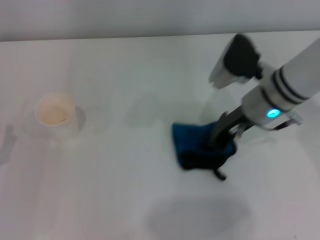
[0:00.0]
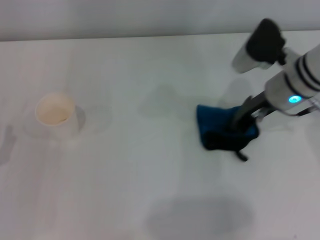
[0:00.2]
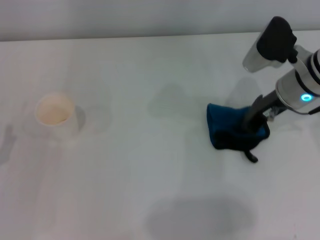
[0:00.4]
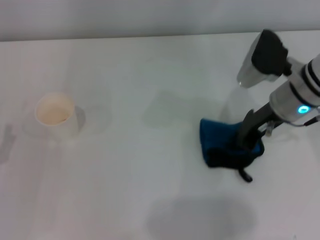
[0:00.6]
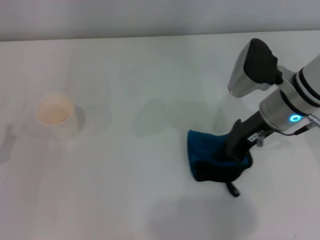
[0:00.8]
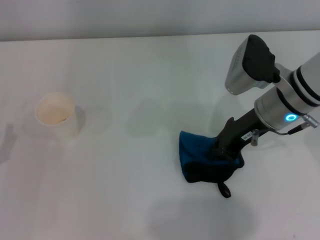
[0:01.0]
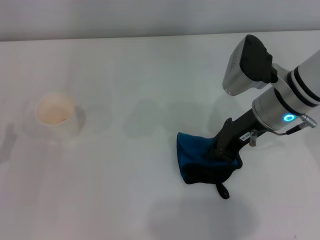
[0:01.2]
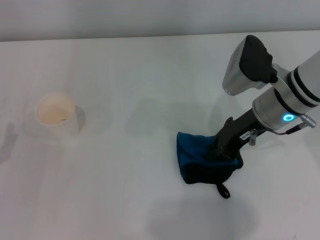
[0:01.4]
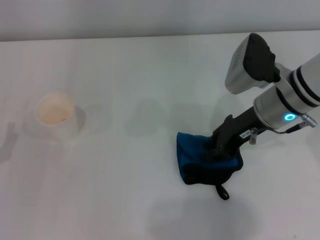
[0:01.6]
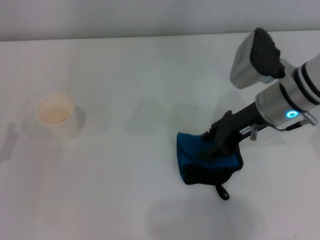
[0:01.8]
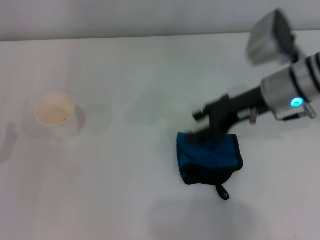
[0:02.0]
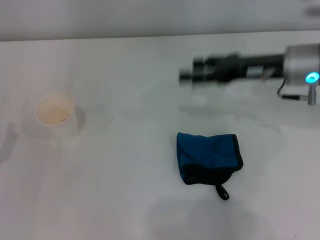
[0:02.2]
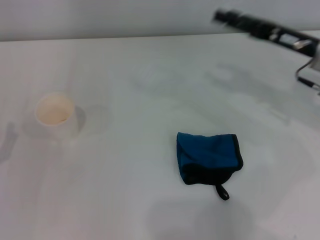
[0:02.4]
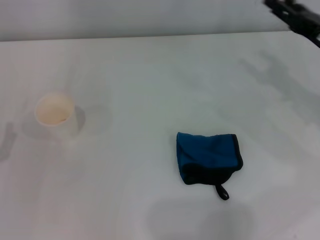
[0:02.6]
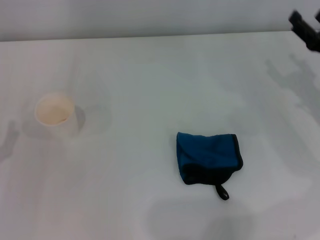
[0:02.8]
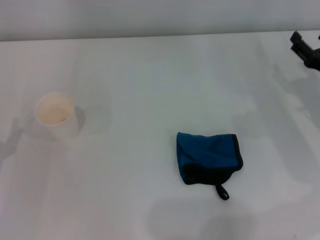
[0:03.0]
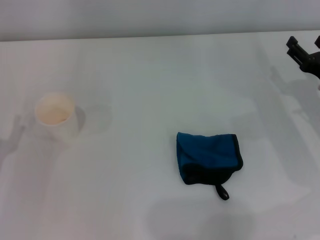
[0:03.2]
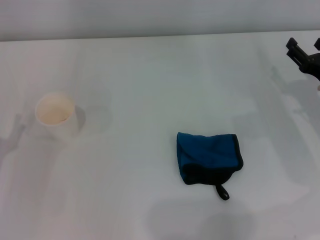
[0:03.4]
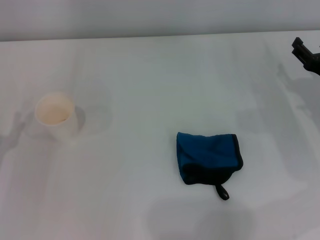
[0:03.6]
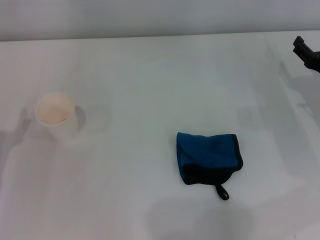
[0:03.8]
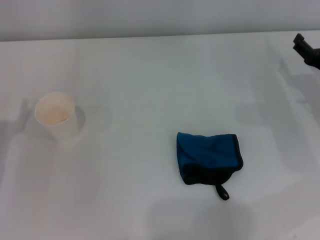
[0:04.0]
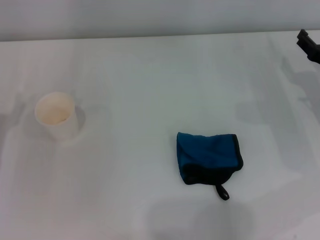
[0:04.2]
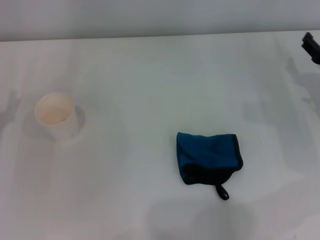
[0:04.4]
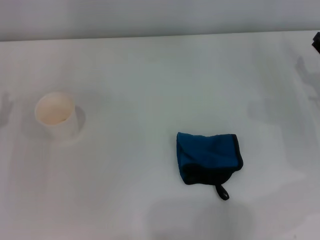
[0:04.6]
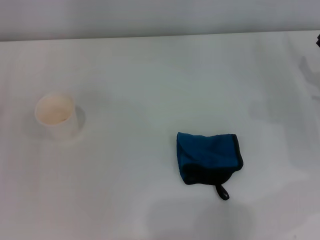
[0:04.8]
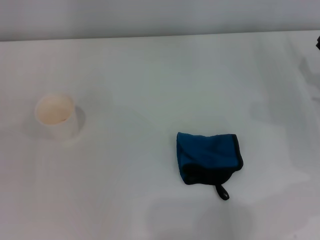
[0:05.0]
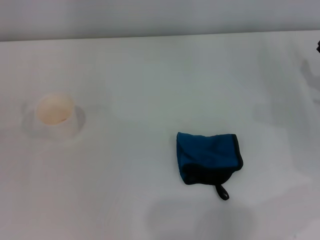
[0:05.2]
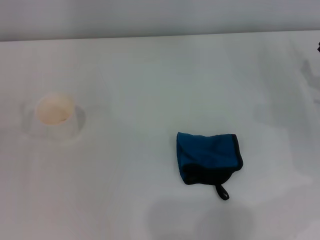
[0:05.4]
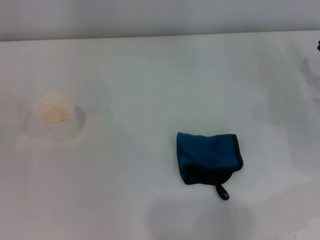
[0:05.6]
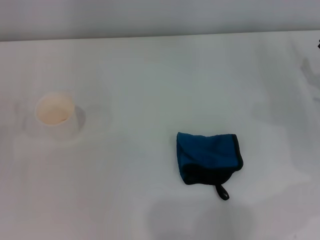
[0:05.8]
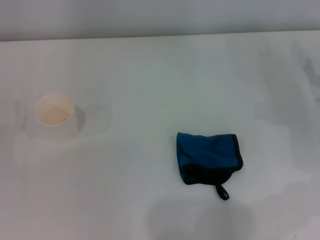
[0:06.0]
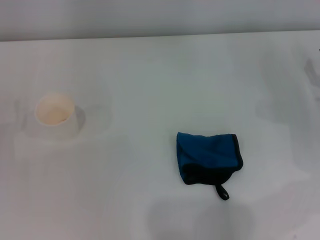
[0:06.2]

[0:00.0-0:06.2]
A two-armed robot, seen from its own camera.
Step, 0:01.0 to 0:01.6: Place the rag on the table with the right gripper.
0:00.0 to 0:01.6: The grippers move only a little.
0:01.6 to 0:03.2: The right gripper heads to the right and downward, covering roughly 15 cm, and opens up.

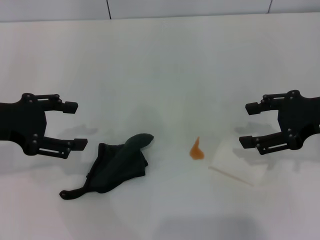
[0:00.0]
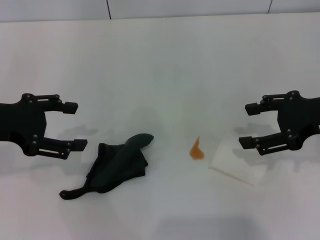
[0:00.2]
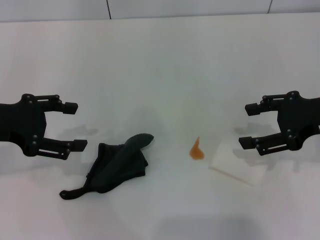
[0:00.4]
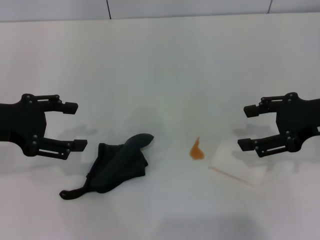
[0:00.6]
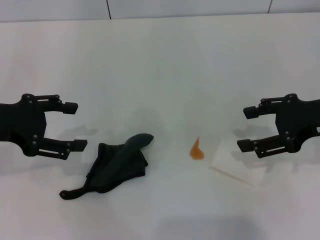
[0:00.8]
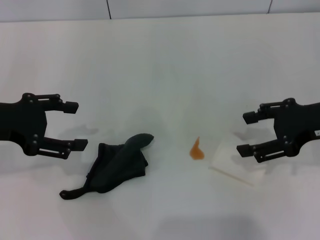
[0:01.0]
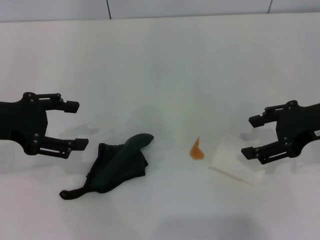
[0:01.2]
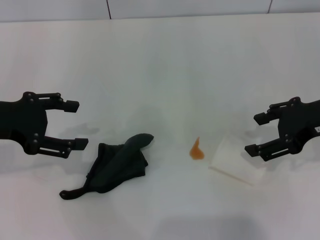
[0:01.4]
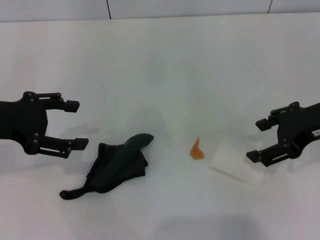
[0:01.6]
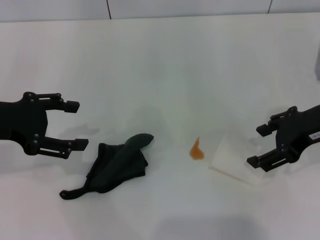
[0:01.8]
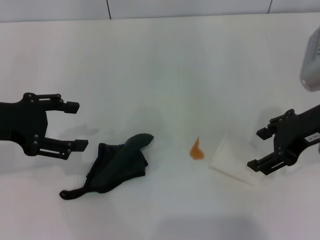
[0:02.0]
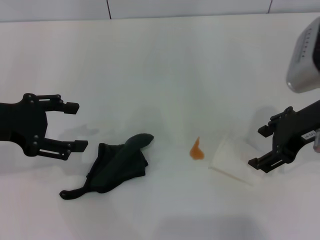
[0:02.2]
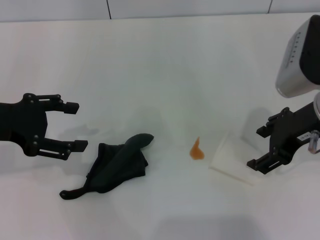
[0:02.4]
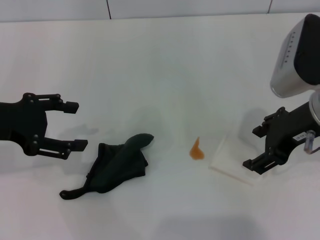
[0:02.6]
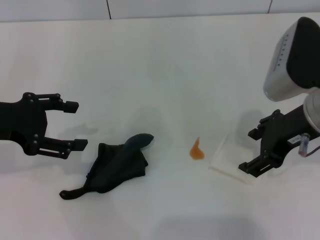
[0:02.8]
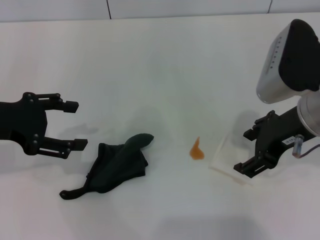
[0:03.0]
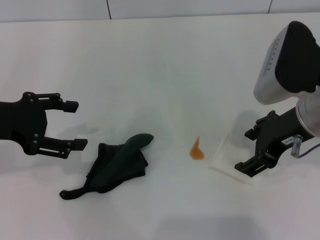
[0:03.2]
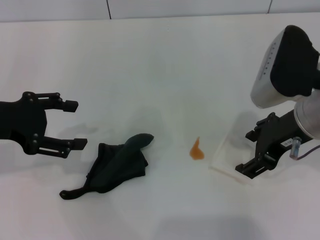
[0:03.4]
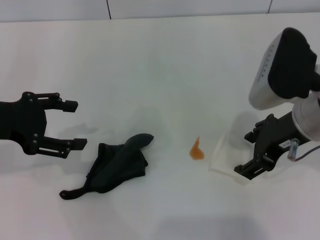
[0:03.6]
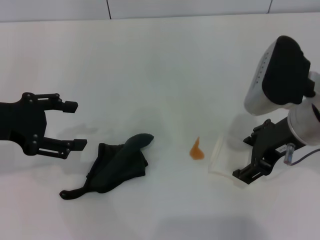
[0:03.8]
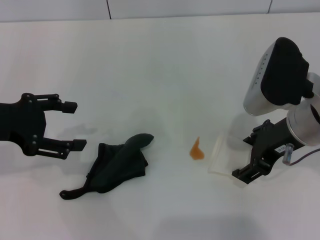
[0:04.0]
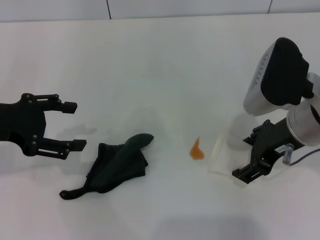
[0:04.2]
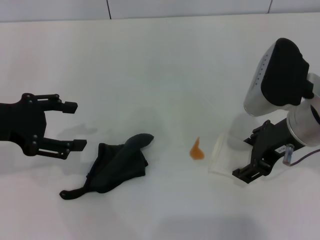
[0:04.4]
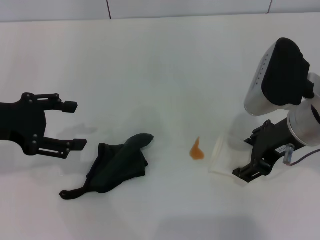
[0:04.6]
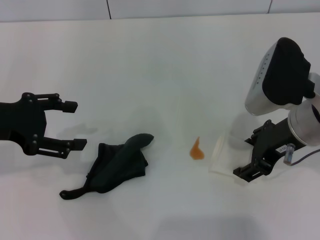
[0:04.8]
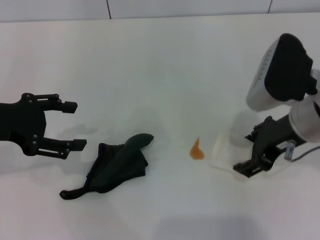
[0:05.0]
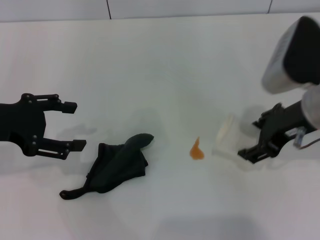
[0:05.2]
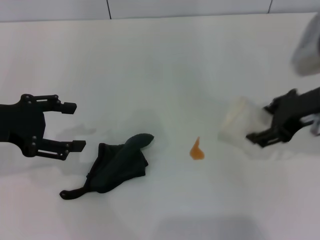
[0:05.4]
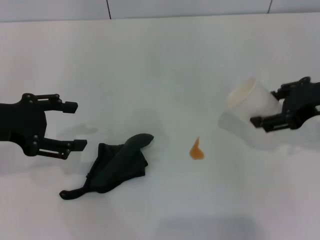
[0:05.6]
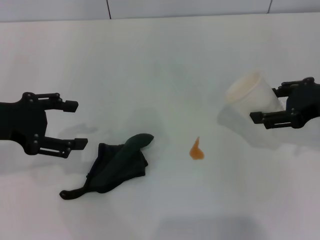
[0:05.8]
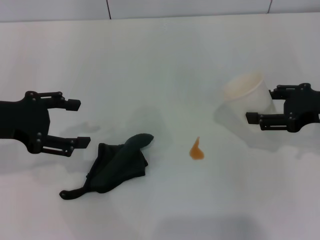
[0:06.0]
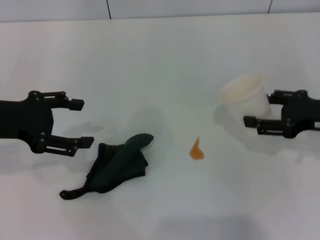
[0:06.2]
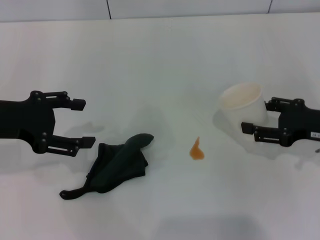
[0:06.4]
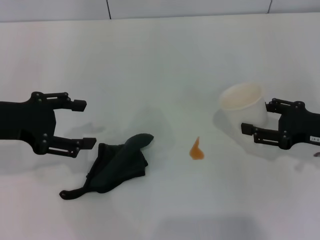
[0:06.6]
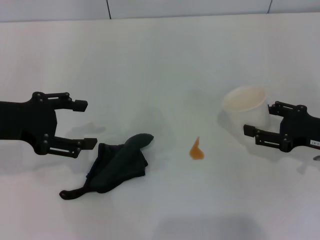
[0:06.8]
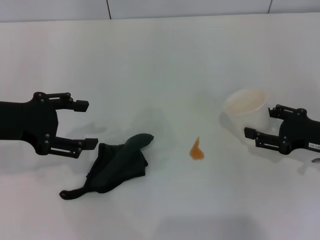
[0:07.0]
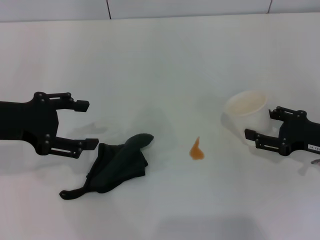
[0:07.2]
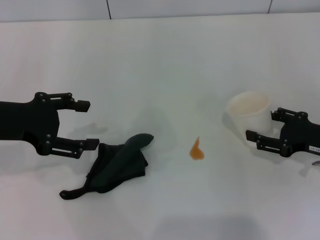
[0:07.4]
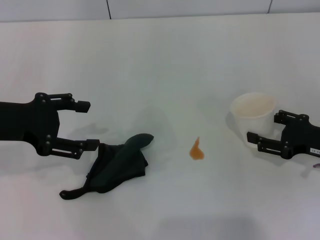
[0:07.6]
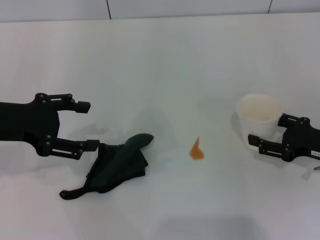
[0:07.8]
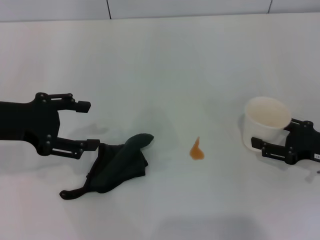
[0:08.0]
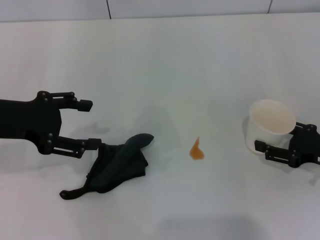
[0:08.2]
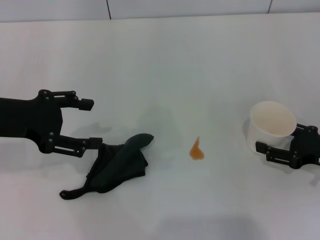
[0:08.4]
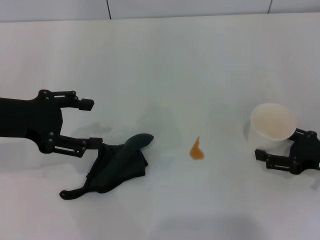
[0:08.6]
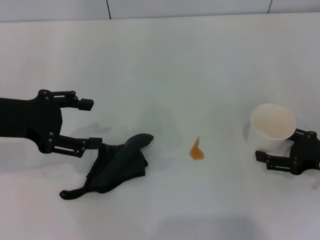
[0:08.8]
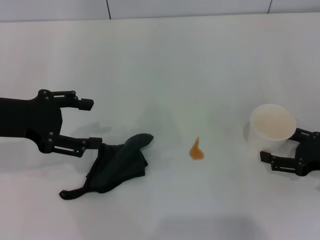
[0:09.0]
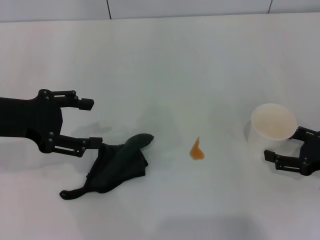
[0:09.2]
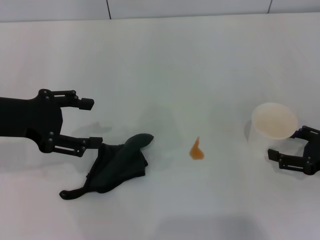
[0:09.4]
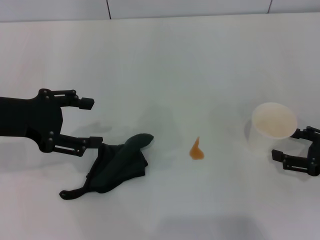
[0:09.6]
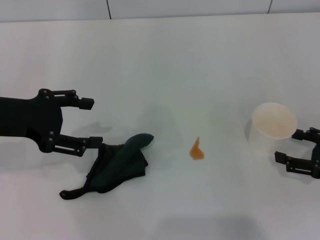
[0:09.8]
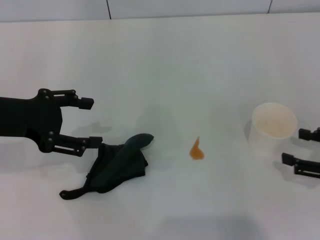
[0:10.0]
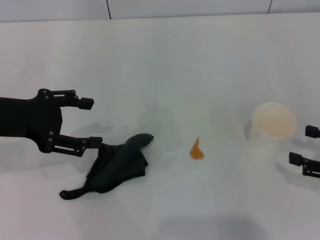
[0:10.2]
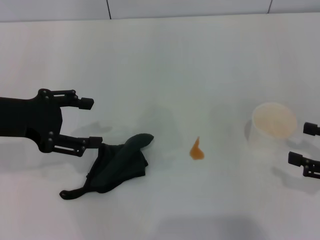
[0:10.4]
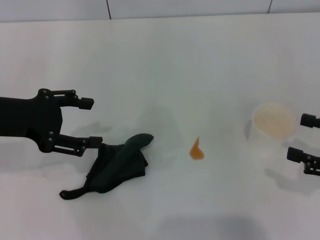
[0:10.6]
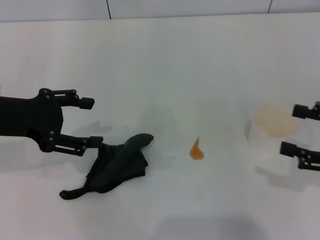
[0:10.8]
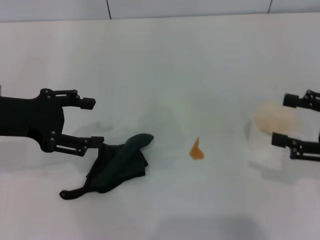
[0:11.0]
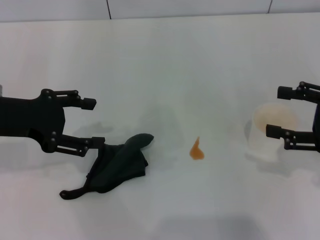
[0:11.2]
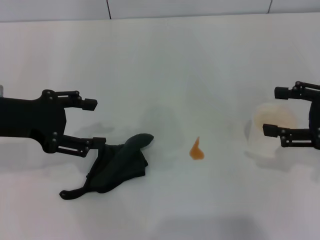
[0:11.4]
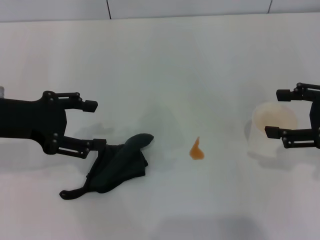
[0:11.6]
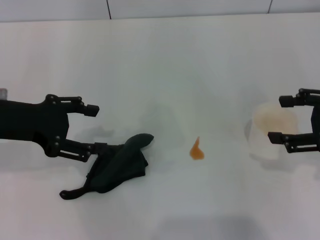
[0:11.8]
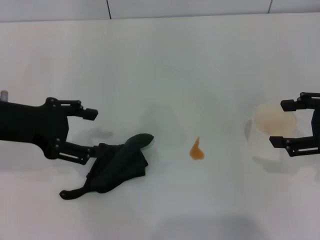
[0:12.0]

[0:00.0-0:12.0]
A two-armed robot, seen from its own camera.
Step, 0:00.0 to 0:04.8: Grasp the paper cup with the right gripper.
Step, 0:05.0 to 0:09.8: Stand the paper cup upright with the right gripper.
0:00.0 to 0:01.6: The grippers make only small movements.
0:01.6 to 0:03.0: The right gripper shifts approximately 5 cm to the left.
0:03.0 to 0:04.4: The grippers move only a little.
0:04.4 to 0:06.0: The right gripper heads to the right, covering about 10 cm.
0:06.0 to 0:07.6: The right gripper heads downward, covering approximately 10 cm.
0:07.6 to 0:09.0: The grippers move only a little.
0:09.0 to 0:10.4: The right gripper heads upward, covering some 5 cm.
0:10.4 to 0:12.0: The right gripper is displaced upward and forward by some 10 cm.

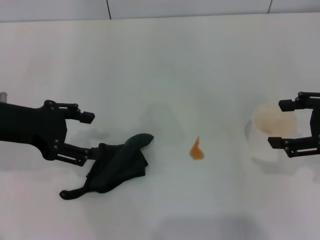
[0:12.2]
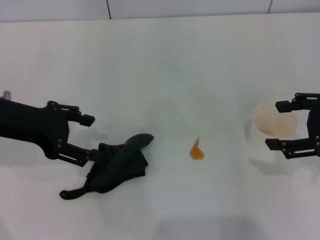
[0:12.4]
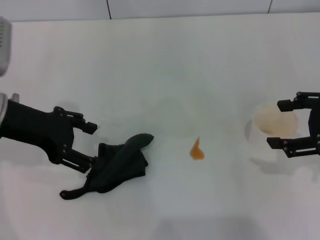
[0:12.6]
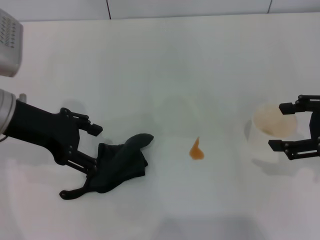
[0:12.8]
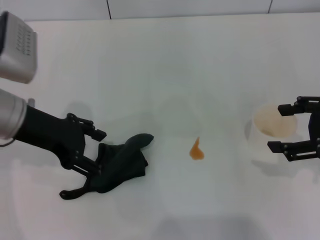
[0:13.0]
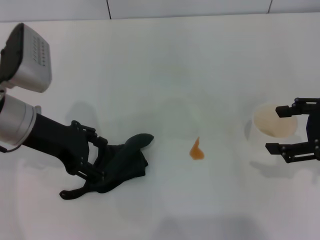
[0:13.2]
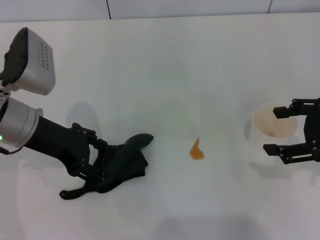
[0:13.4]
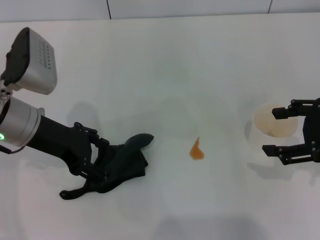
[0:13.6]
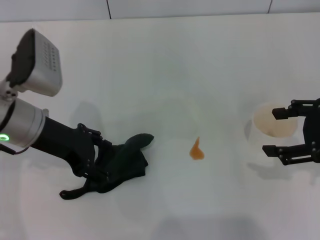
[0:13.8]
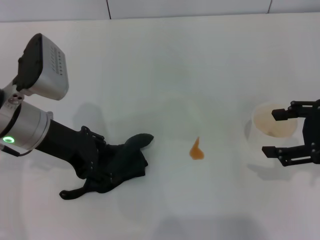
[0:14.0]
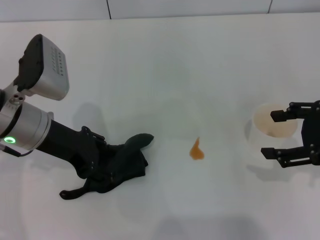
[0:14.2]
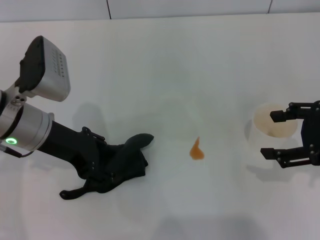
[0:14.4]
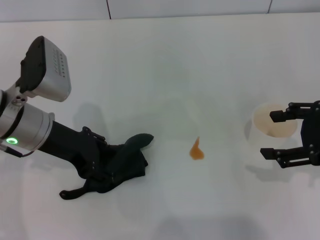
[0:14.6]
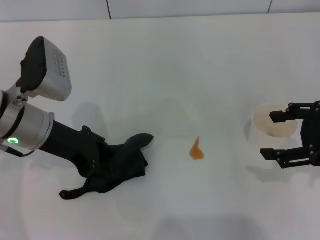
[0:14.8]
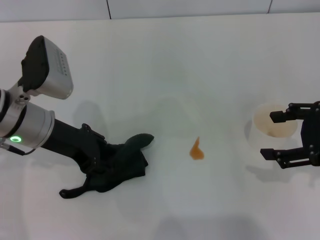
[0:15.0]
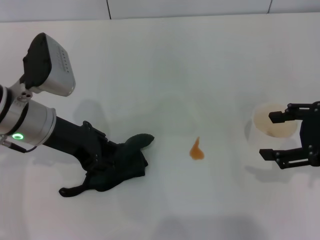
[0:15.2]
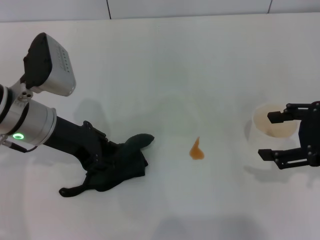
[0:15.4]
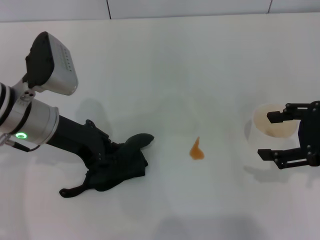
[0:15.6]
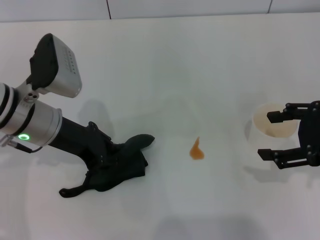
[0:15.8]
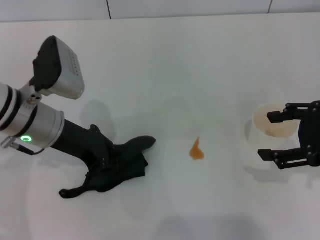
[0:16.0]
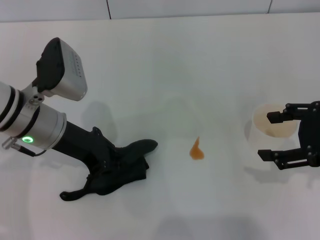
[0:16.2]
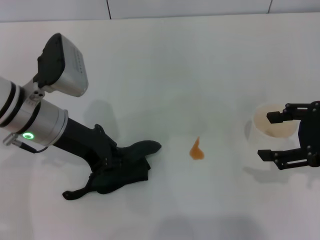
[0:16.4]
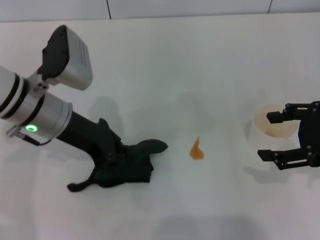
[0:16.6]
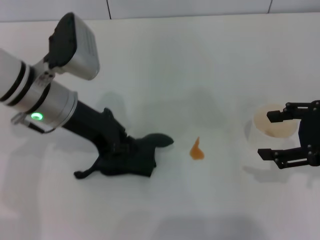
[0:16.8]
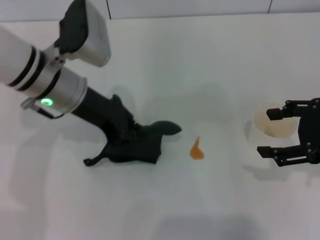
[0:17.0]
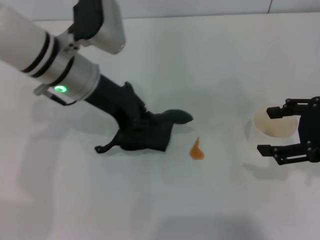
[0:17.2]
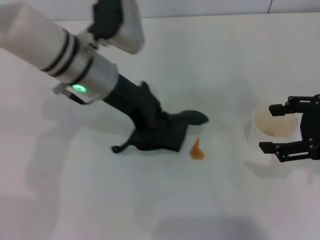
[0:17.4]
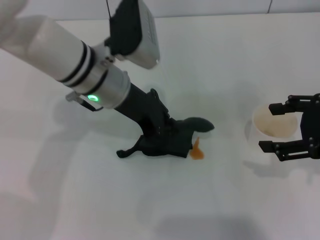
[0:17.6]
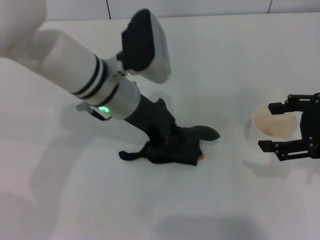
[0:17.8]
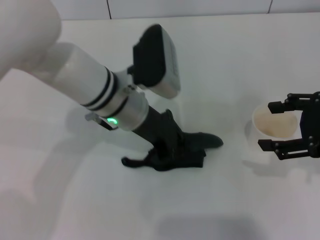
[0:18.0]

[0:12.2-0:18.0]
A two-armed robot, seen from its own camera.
Step, 0:12.2 to 0:15.8: Grasp the rag with the left gripper.
0:12.2 to 0:13.6: The left gripper changes place by some 5 cm.
0:13.6 to 0:15.0: The left gripper closes.
0:15.0 to 0:16.6: The left gripper closes up.
0:16.6 to 0:18.0: The left gripper travels to the right by some 10 cm.
